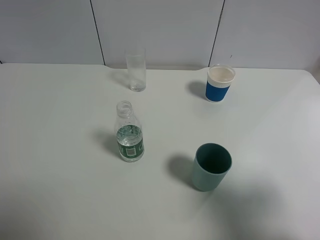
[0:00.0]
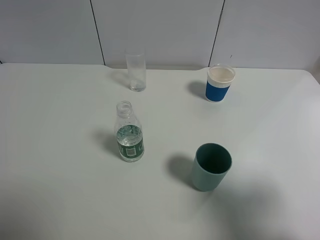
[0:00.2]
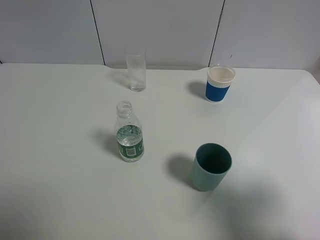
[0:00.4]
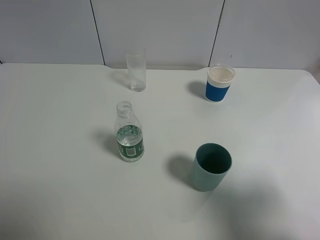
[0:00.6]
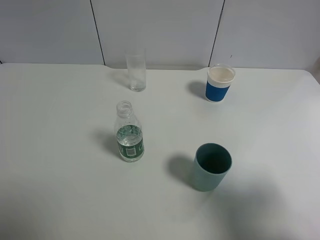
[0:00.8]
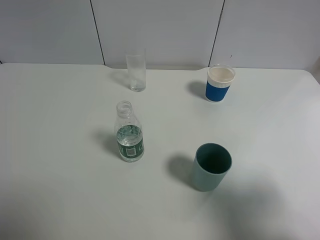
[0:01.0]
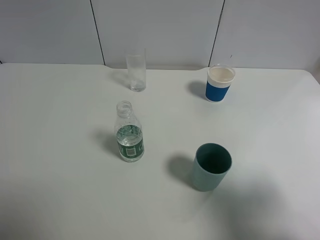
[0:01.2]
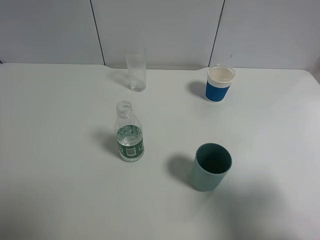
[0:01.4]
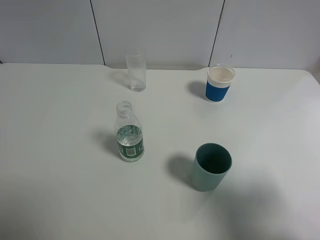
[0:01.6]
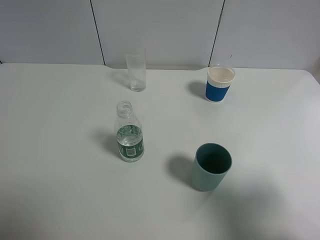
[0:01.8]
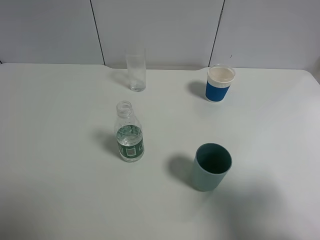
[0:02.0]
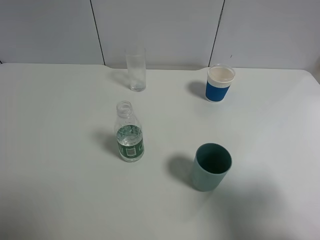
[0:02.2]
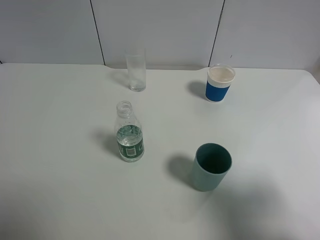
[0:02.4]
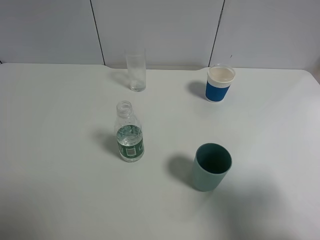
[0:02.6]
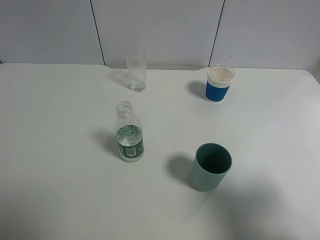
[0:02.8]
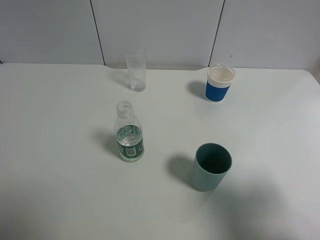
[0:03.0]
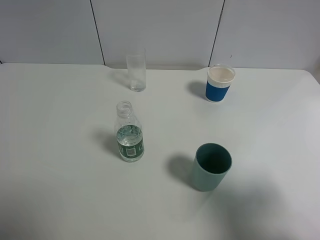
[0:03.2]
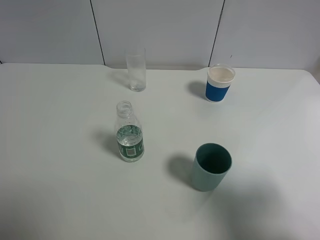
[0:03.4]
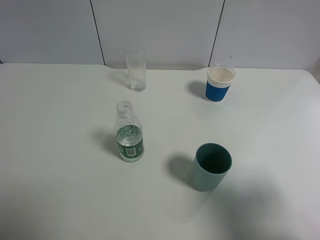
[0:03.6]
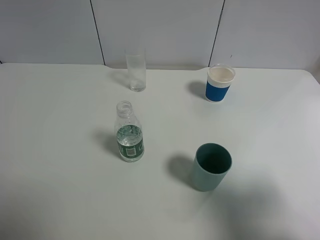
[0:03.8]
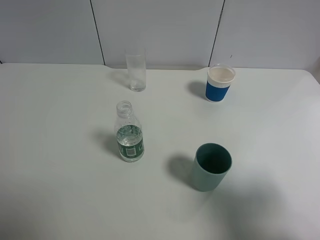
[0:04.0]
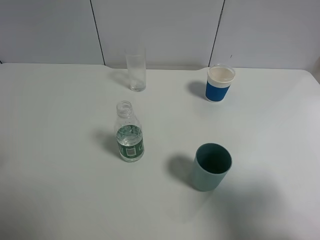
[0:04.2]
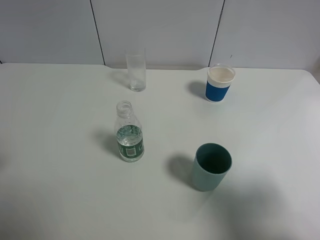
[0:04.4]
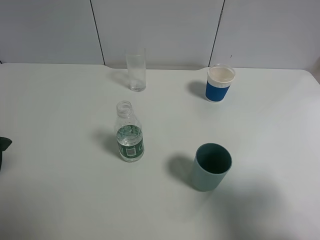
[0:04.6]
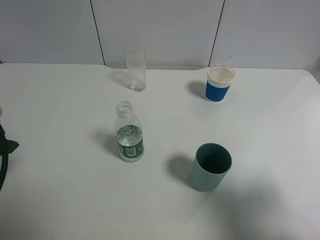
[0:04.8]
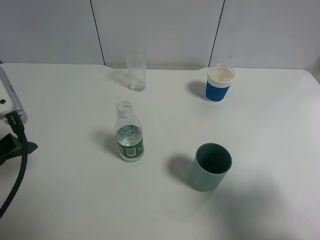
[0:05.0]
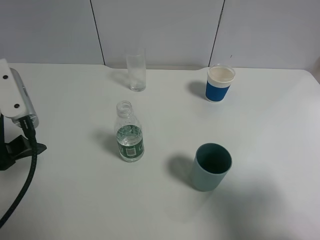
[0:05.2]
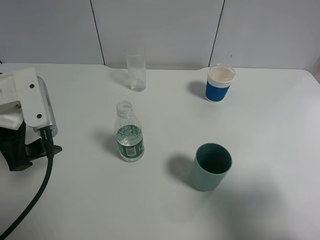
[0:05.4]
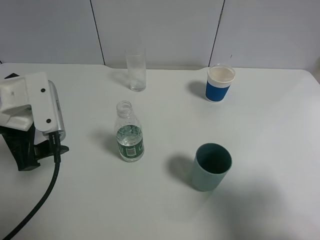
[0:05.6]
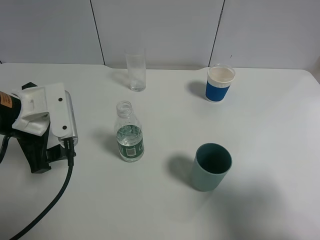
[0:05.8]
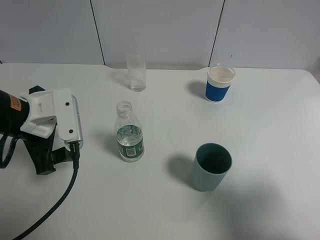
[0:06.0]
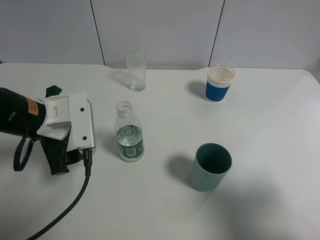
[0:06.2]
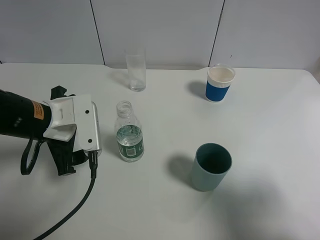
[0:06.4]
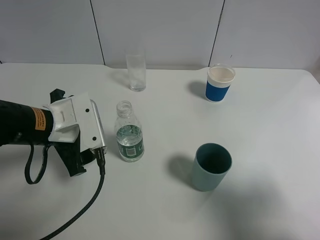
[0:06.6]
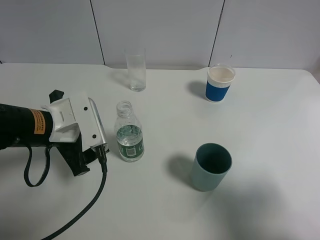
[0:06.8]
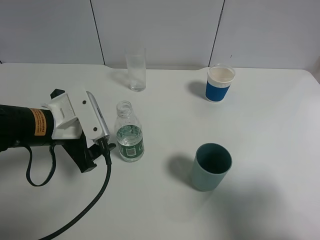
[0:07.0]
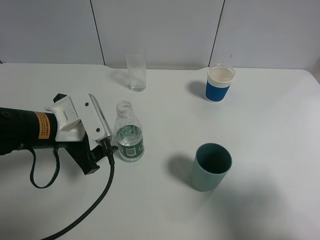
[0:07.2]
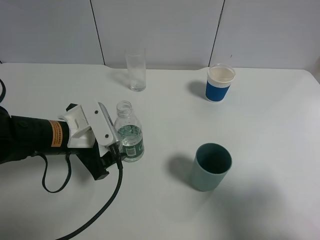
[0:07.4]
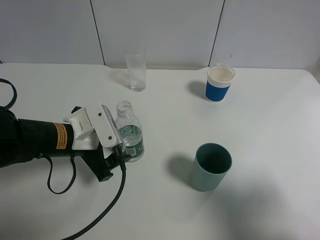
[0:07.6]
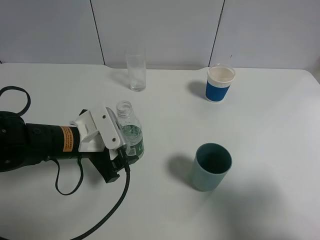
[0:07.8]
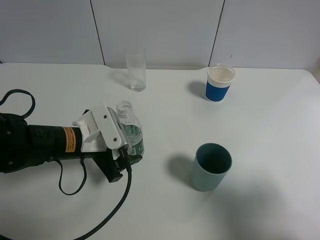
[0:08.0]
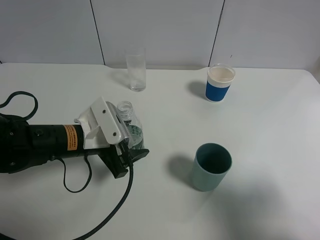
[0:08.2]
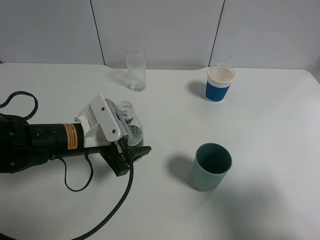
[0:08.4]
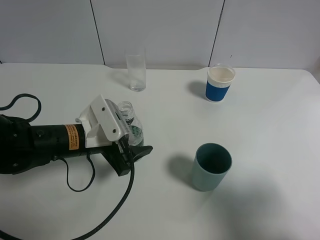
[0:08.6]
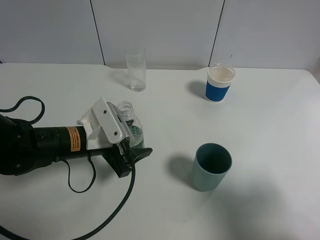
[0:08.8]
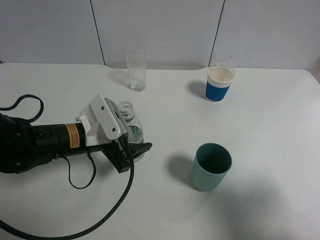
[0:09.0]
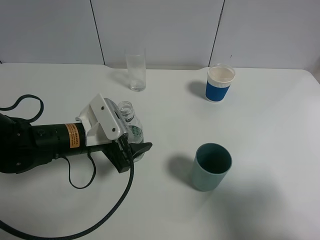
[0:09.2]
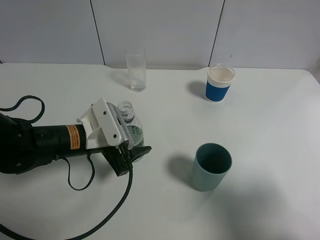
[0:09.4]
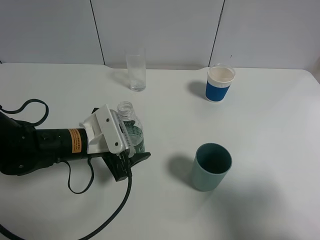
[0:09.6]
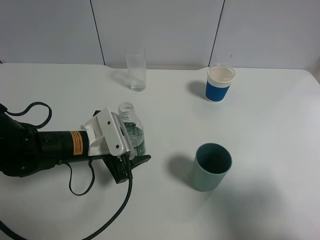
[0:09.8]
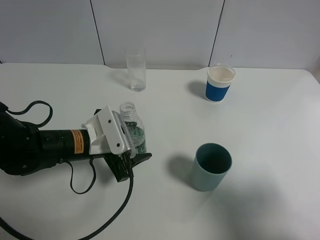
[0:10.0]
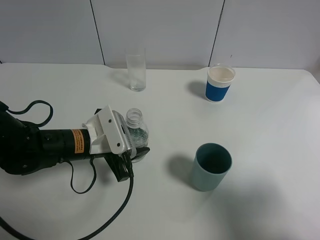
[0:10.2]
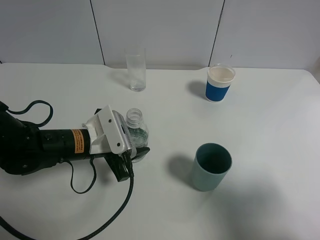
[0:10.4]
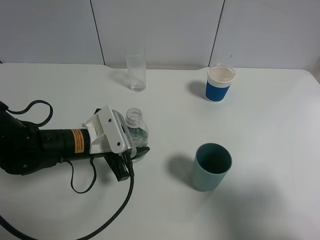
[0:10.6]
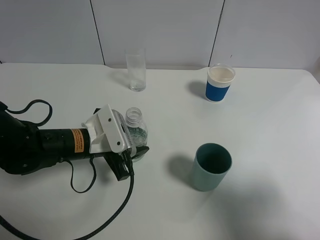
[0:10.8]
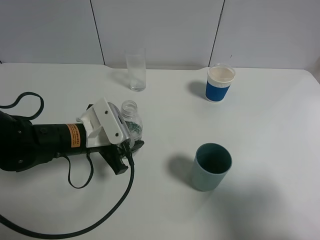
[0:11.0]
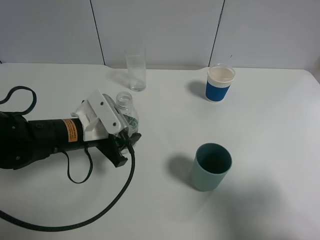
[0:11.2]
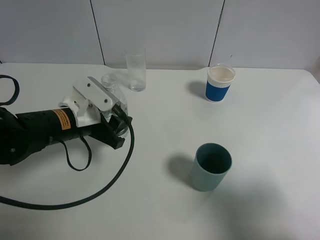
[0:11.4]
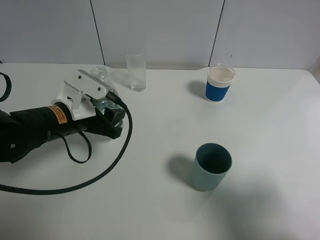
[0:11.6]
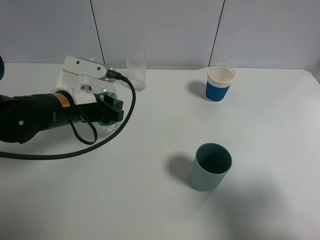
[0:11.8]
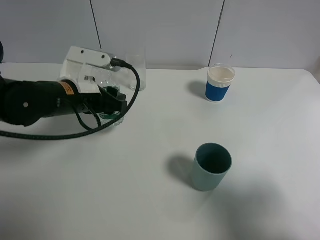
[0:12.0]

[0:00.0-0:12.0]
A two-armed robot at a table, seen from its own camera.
Task of the whole recording: use a gripper to hold the bottle of the drink and pour it into a random cup.
Step, 0:00.0 to 0:10.2: Grasp the mineral water bottle with the left gripper.
0:00.0 to 0:03.0: Both grippers stay put.
0:04.4 to 0:06.0: The left gripper shifts some 15 cm to the right, downward and forward.
0:06.0 to 0:07.6: The left gripper travels downward and to the right by some 10 cm.
0:07.6 to 0:09.0: The grippers make only small movements.
0:09.0 to 0:10.4: The left gripper closes up.
0:10.4 to 0:12.0: The left gripper goes some 10 cm upward and forward.

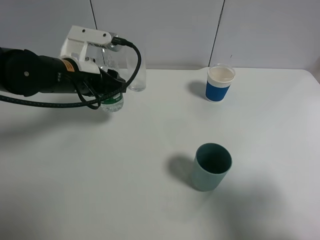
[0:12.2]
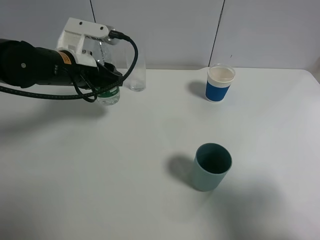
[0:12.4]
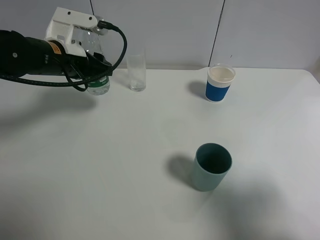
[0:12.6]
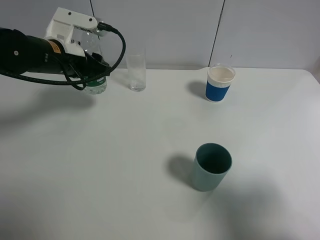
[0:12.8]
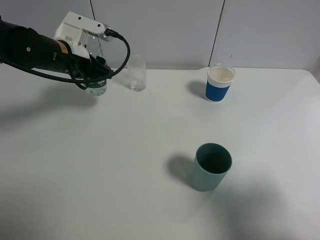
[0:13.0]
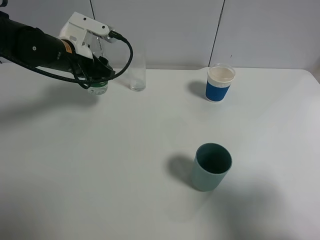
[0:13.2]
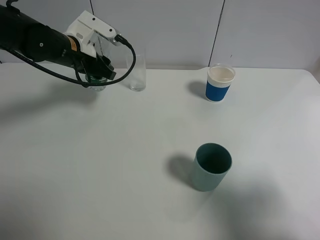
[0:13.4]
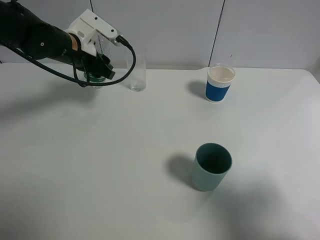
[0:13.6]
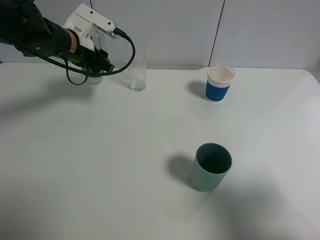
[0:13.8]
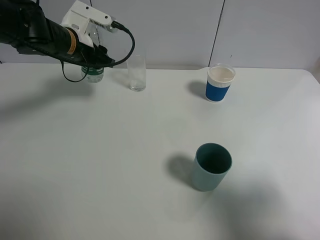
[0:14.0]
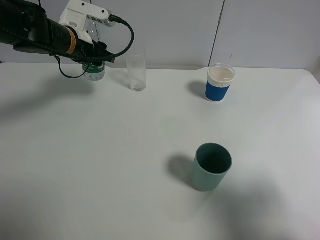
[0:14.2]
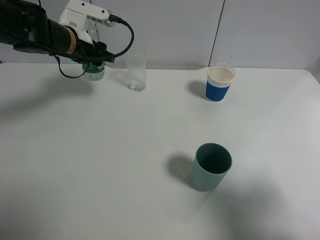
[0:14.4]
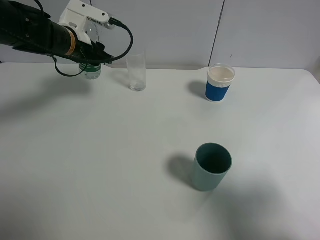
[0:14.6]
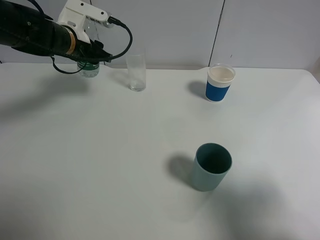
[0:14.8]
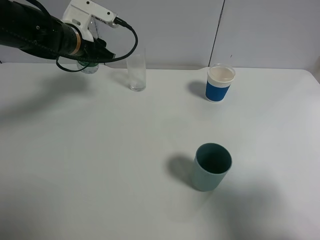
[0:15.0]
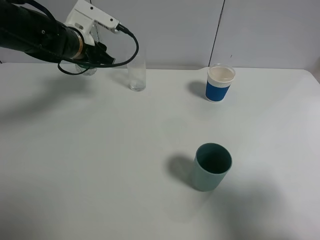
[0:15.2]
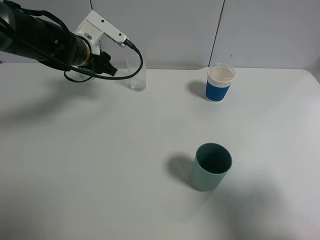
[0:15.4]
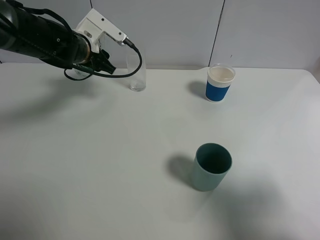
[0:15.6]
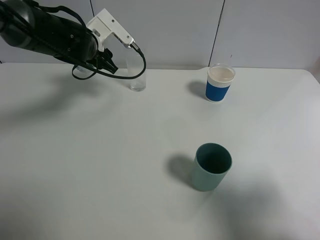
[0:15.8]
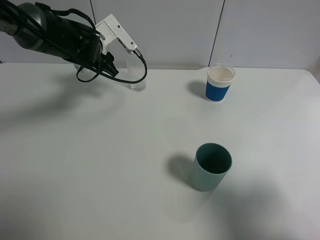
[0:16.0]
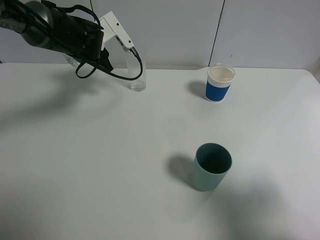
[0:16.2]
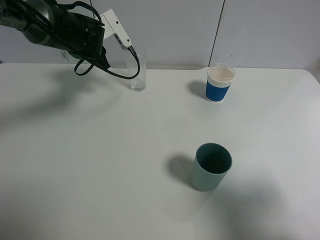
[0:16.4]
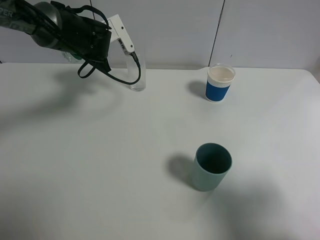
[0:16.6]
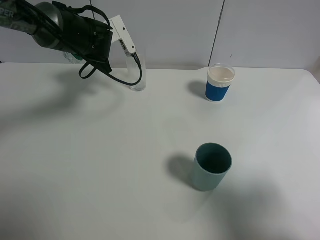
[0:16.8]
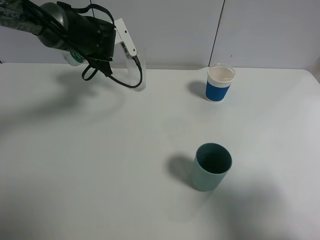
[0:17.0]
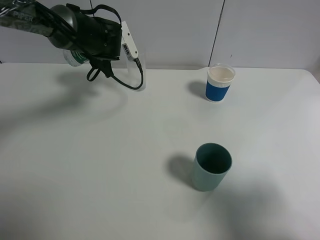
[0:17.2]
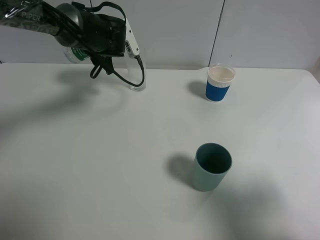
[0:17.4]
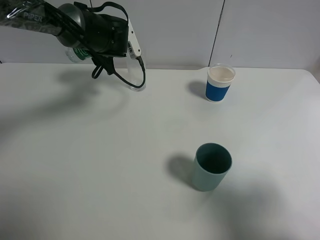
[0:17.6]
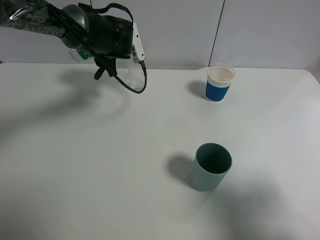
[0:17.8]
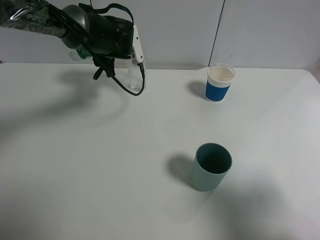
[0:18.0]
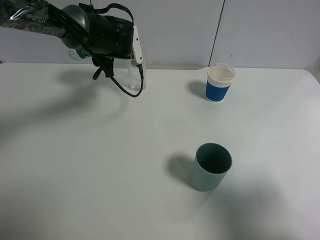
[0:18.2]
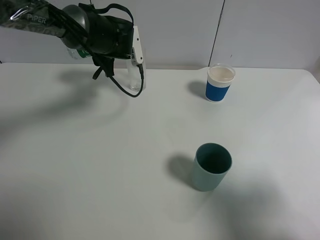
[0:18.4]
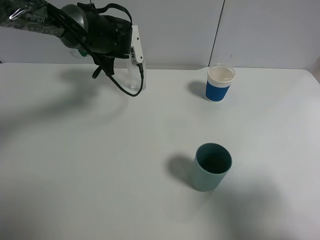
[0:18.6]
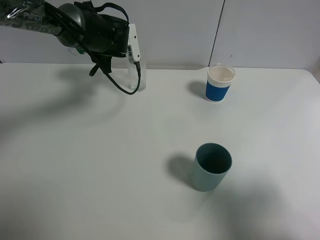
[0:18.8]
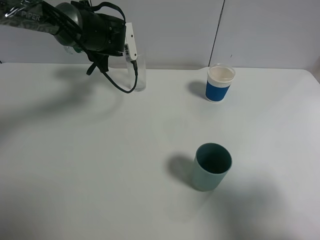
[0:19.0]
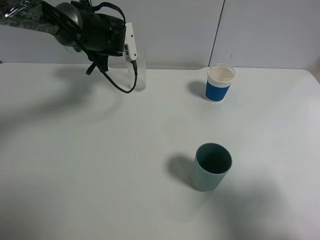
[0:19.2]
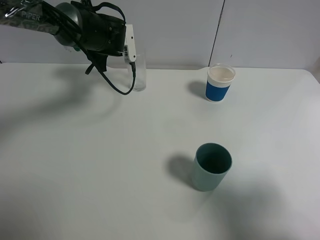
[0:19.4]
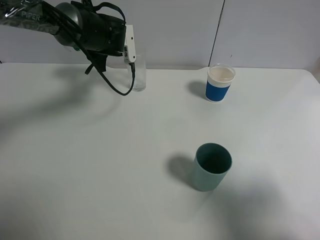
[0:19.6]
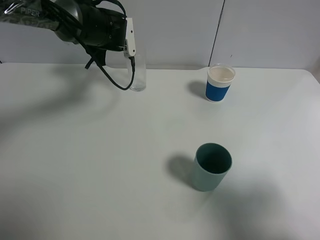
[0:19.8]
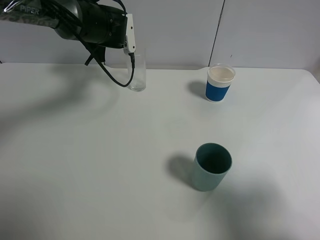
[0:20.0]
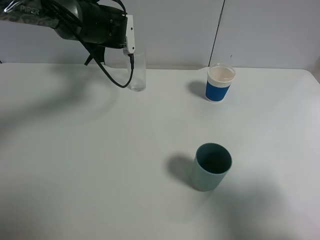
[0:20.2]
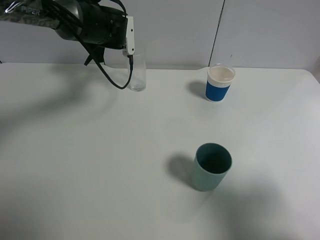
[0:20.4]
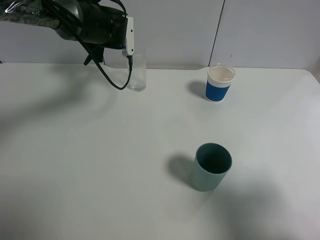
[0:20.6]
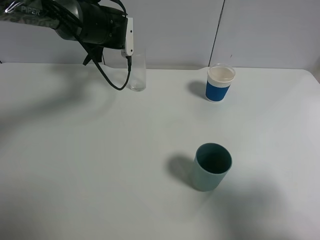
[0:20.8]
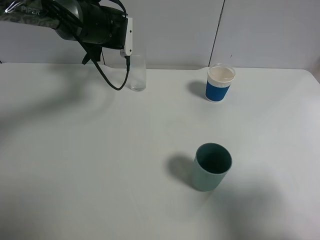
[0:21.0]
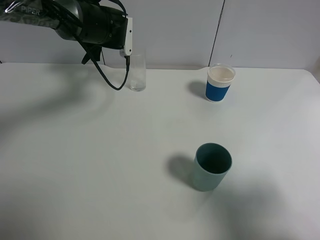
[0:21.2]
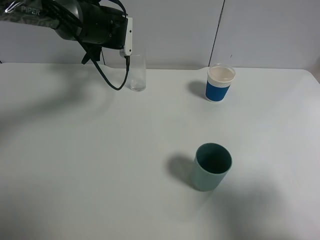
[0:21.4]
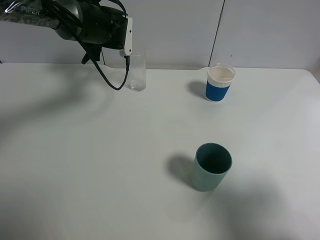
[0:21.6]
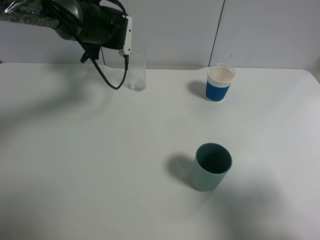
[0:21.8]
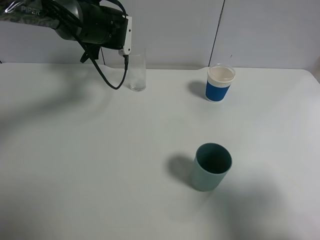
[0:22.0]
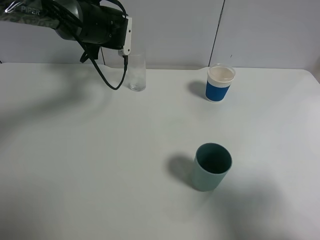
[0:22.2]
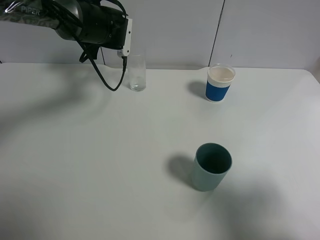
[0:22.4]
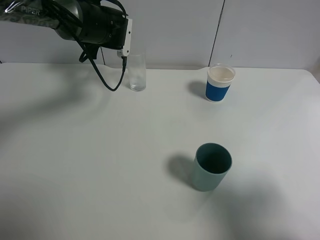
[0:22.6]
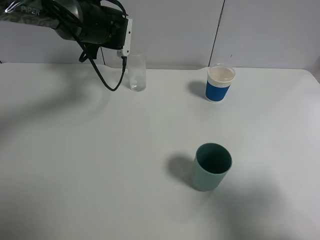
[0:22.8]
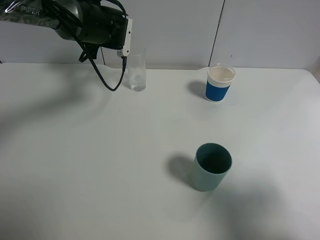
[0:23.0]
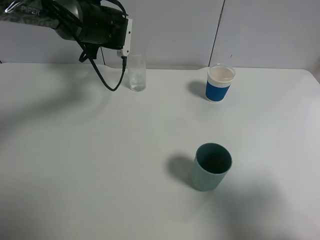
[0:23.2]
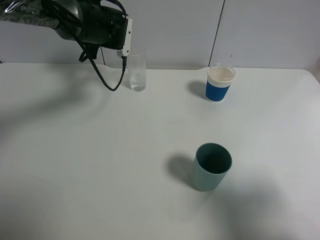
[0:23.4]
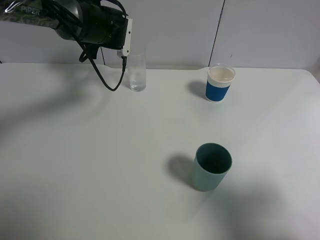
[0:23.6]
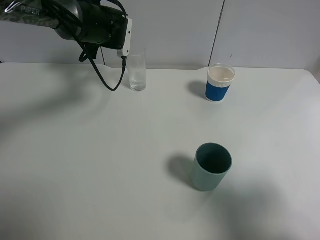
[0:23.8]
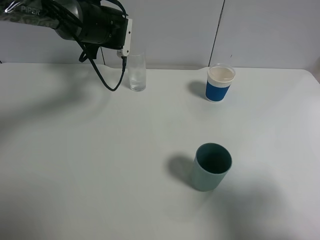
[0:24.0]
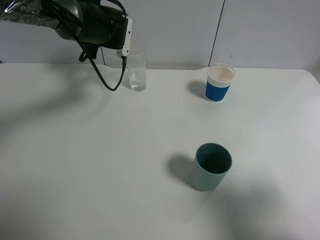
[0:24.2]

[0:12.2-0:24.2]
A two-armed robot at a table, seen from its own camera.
Task of the whole recording: use a gripper to hold the bottle of the drink and pour it into a random cup.
0:12.2 to 0:13.8: The left gripper is displaced forward by some 10 cm.
0:13.8 to 0:15.2: The grippers stay close to where they were, moving slightly.
0:16.6 to 0:18.2: There are only small adjustments of the grippers.
0:18.2 to 0:22.6: There are only small adjustments of the grippers.
0:22.6 to 0:24.2: Both grippers stay put.
